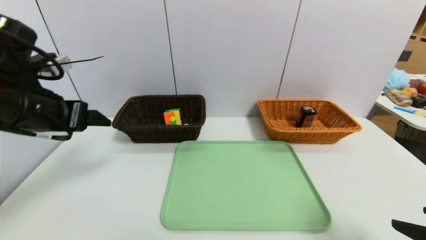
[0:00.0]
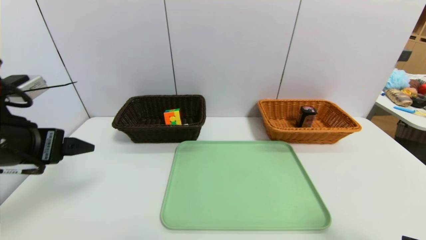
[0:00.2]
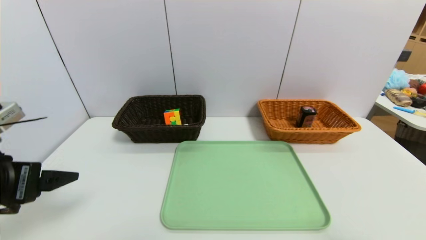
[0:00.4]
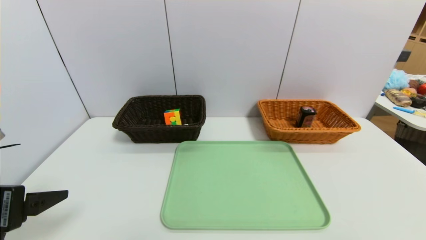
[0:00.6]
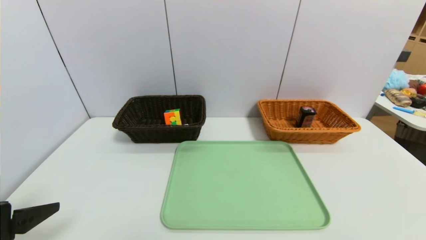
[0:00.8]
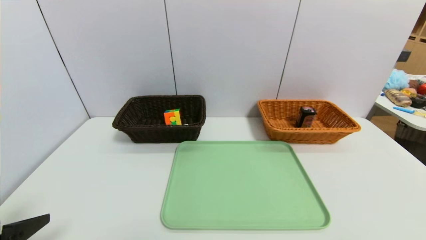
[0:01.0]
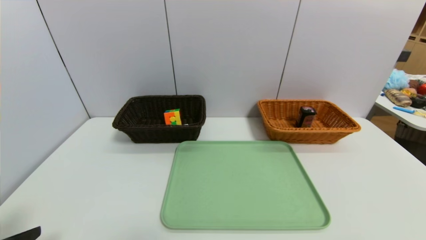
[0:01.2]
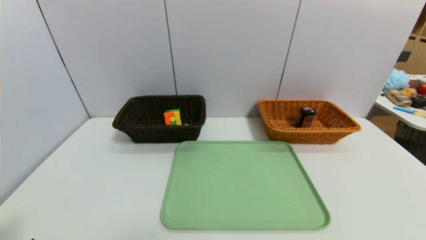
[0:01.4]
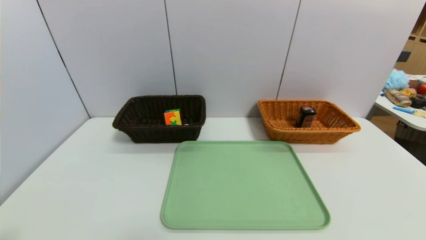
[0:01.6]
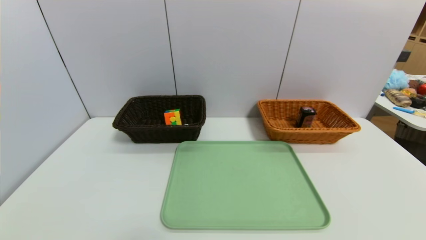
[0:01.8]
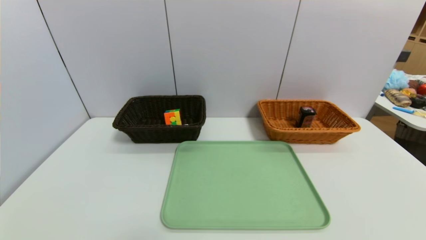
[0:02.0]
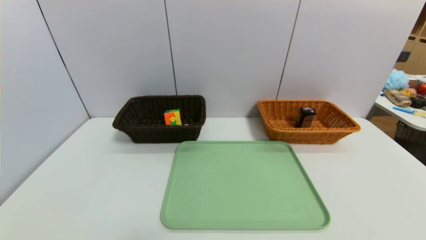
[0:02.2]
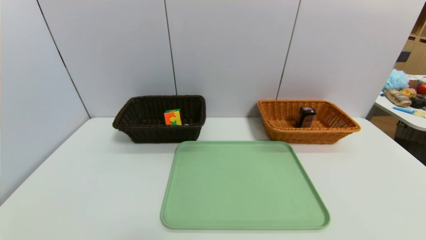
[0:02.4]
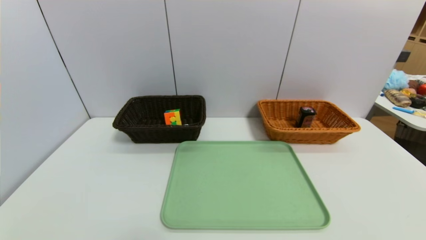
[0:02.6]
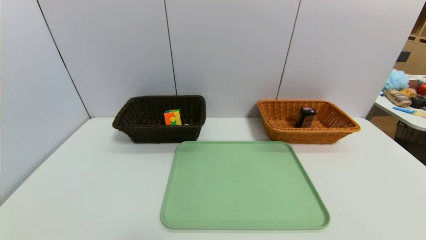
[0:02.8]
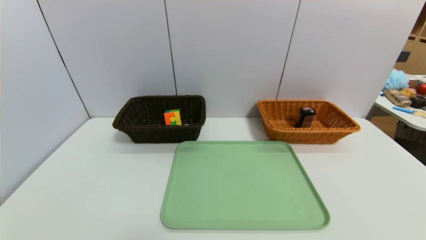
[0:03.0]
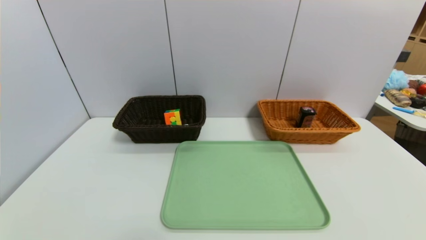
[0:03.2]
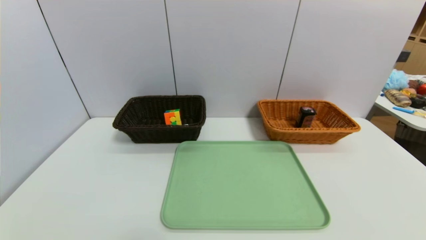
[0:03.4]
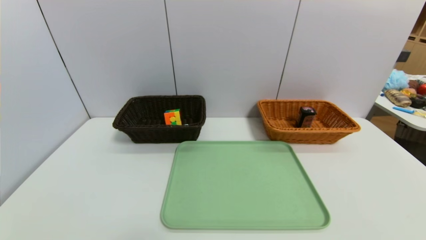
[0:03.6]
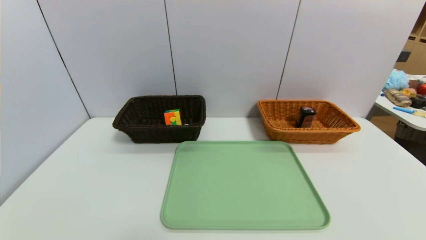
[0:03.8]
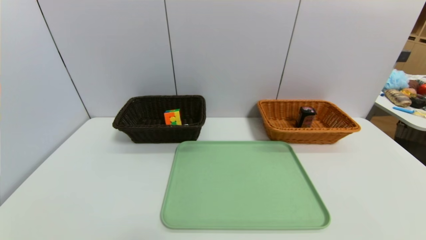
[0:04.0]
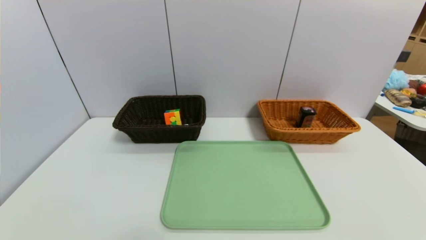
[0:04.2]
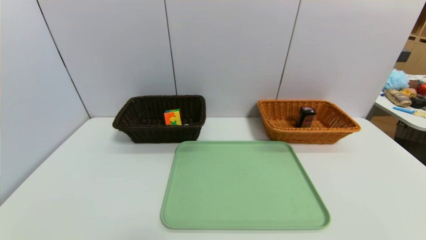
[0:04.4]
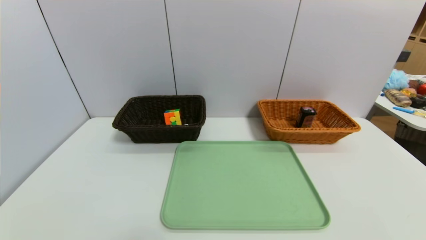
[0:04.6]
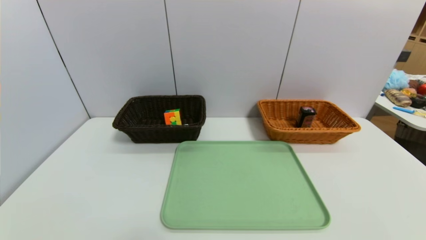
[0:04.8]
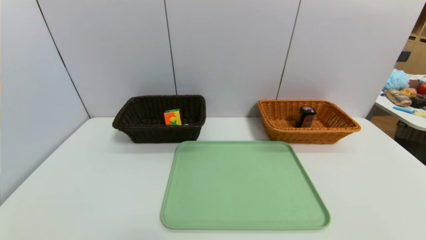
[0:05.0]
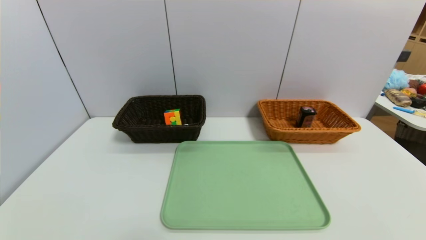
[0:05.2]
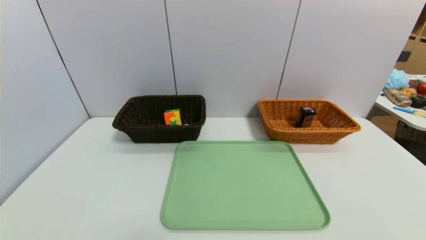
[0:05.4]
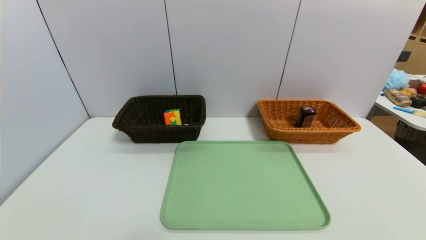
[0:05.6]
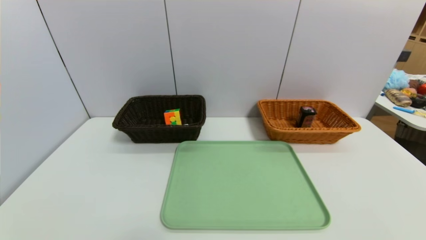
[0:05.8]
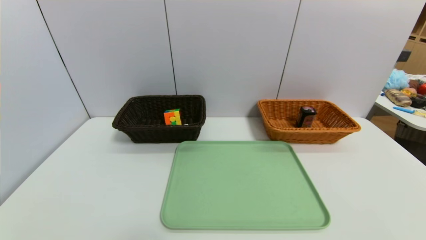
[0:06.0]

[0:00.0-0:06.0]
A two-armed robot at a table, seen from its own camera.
Task of the whole recording: place the food in the right basket with the right gripper, and place the non food items in the left basket with the left gripper.
0:00.0 to 0:01.6: The right gripper travels backward by roughly 10 cm. Meanwhile the left gripper is displaced backward and downward by some 25 cm.

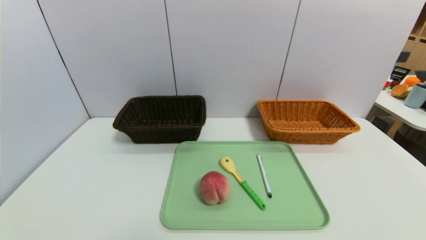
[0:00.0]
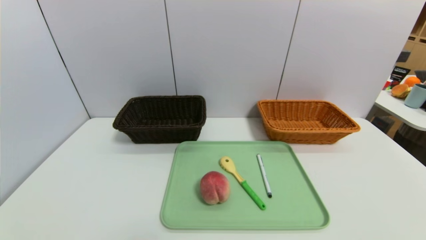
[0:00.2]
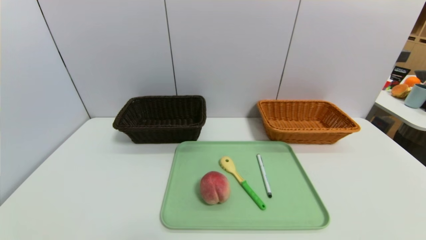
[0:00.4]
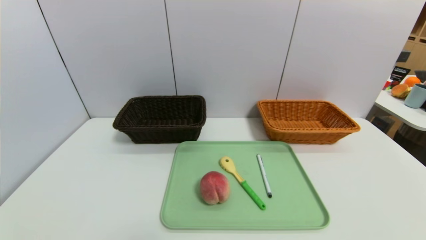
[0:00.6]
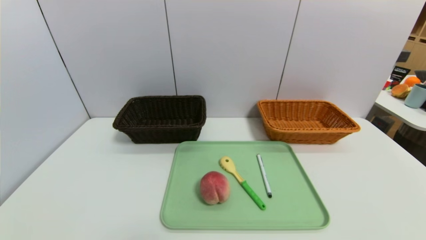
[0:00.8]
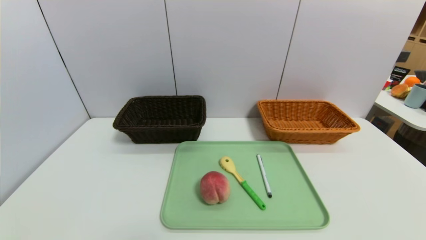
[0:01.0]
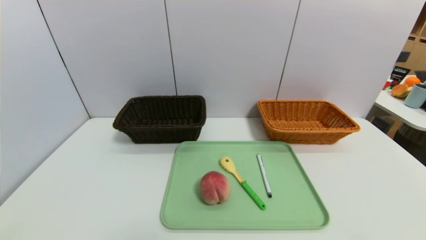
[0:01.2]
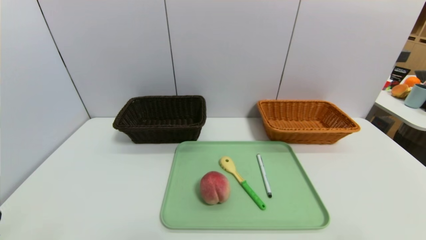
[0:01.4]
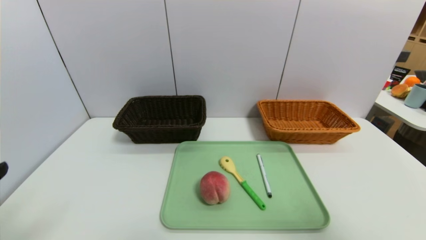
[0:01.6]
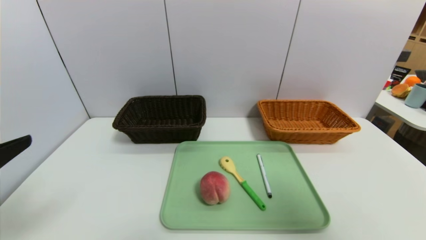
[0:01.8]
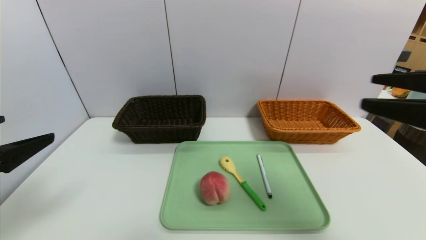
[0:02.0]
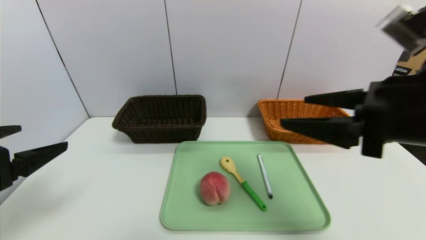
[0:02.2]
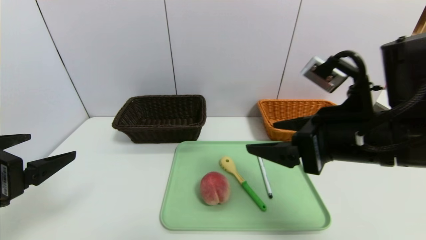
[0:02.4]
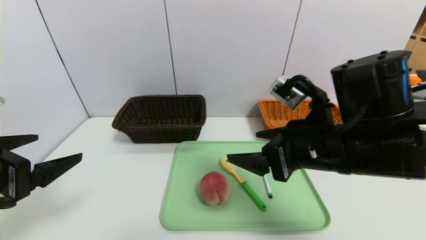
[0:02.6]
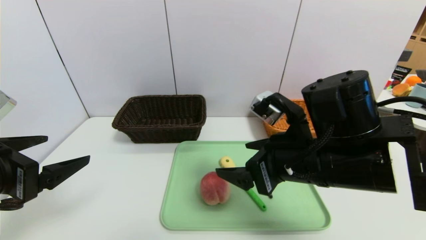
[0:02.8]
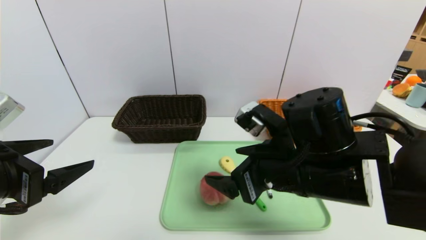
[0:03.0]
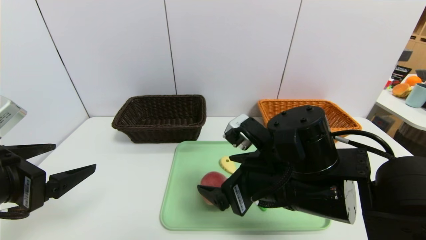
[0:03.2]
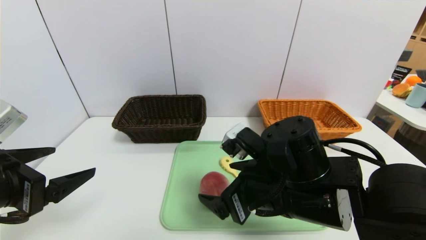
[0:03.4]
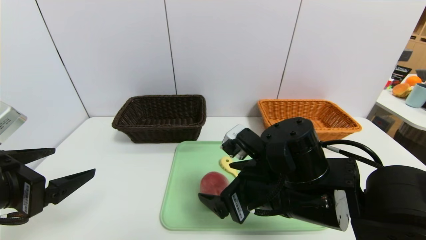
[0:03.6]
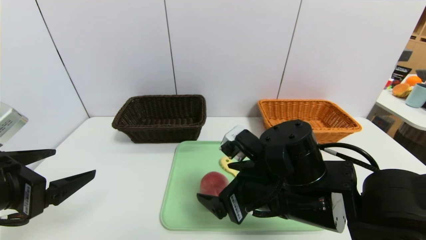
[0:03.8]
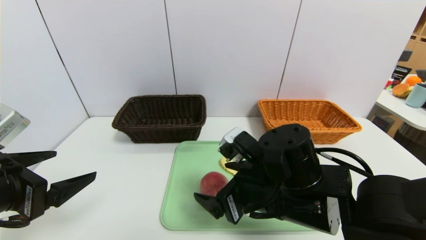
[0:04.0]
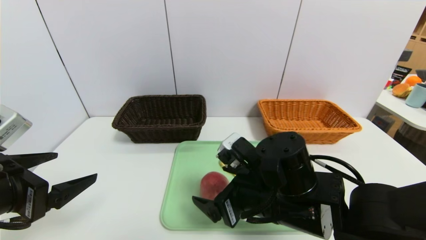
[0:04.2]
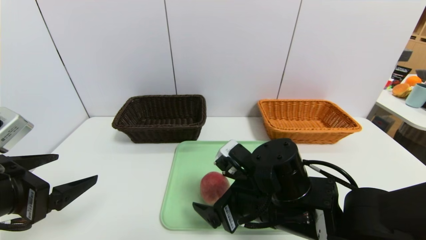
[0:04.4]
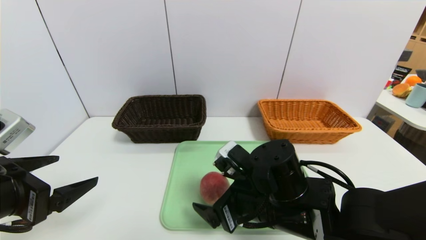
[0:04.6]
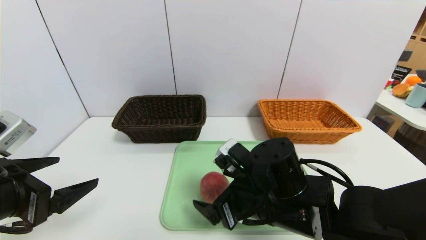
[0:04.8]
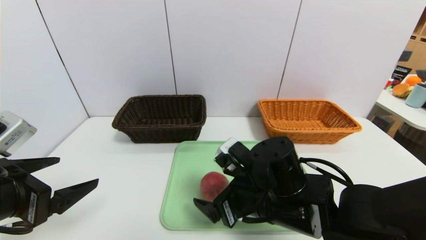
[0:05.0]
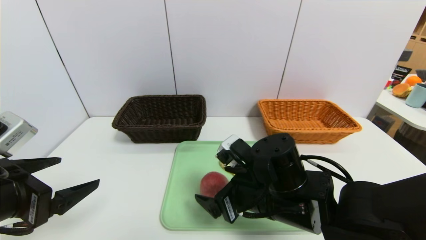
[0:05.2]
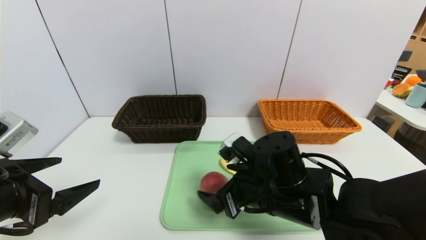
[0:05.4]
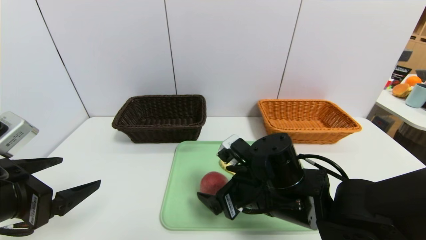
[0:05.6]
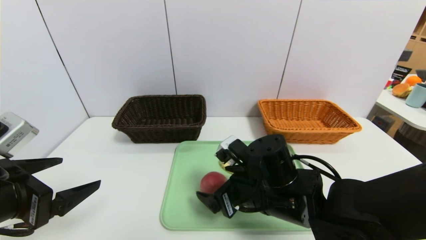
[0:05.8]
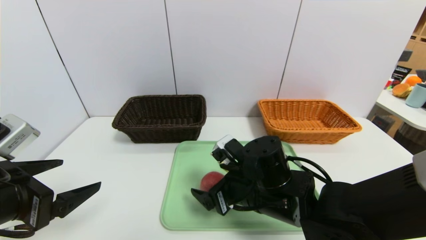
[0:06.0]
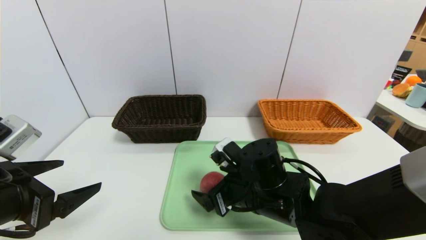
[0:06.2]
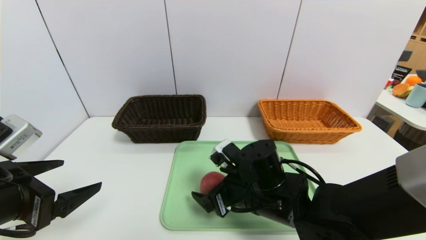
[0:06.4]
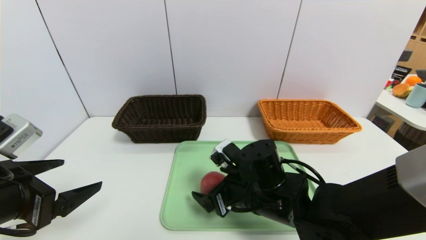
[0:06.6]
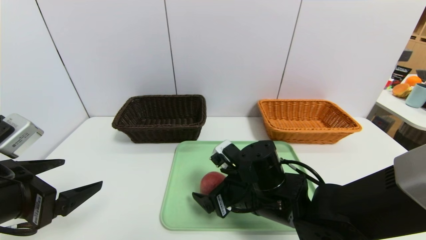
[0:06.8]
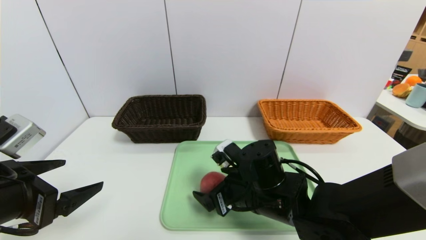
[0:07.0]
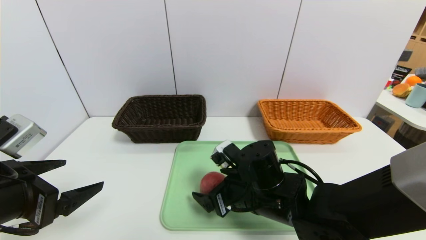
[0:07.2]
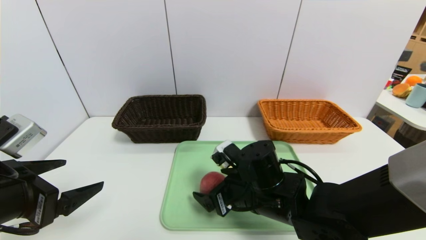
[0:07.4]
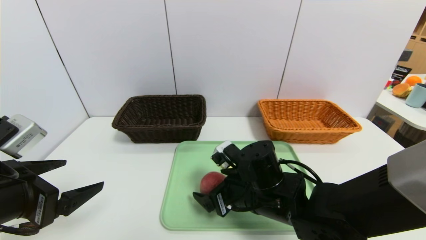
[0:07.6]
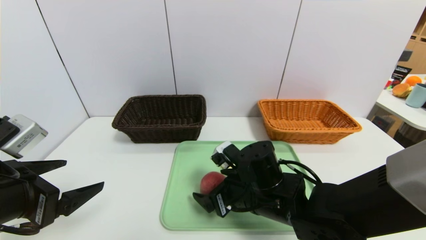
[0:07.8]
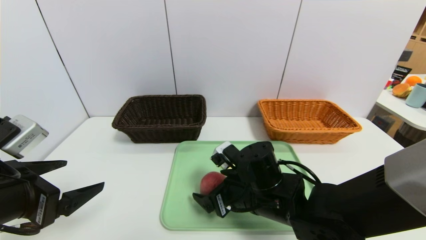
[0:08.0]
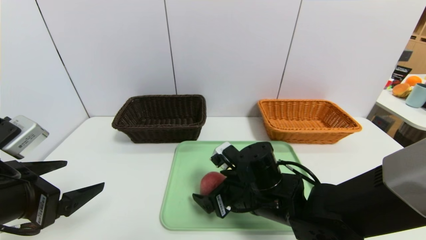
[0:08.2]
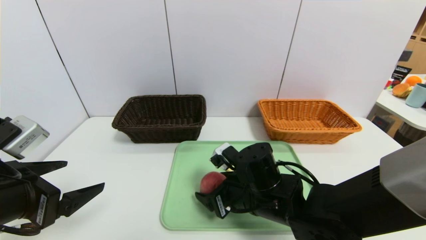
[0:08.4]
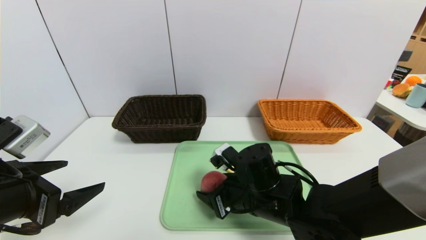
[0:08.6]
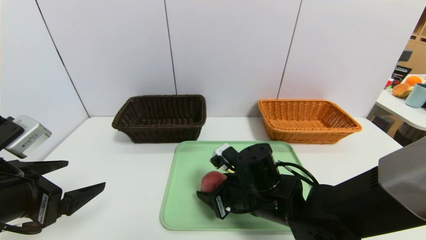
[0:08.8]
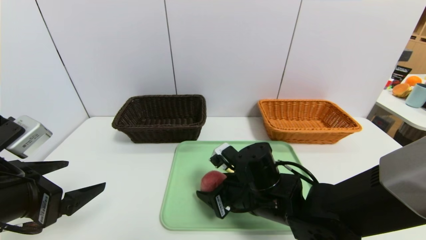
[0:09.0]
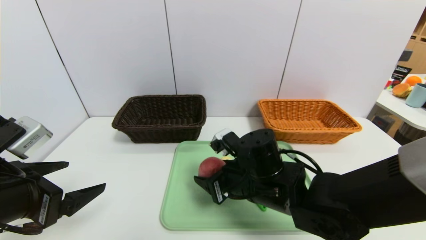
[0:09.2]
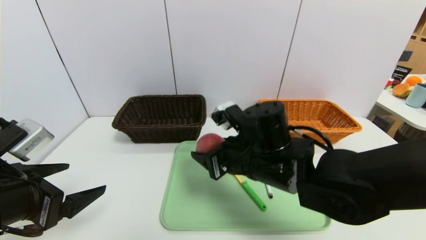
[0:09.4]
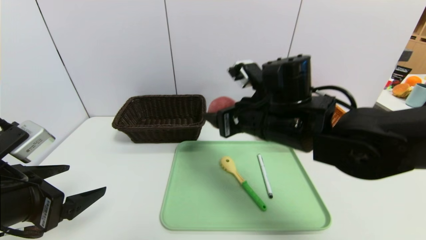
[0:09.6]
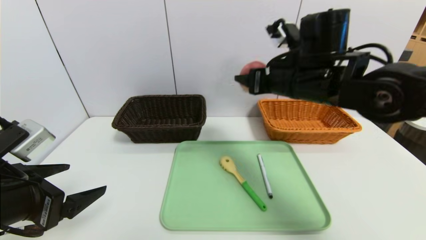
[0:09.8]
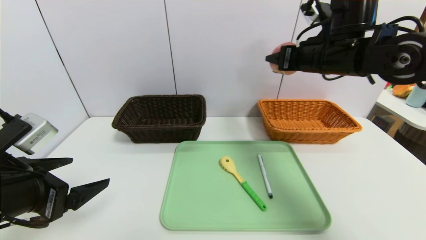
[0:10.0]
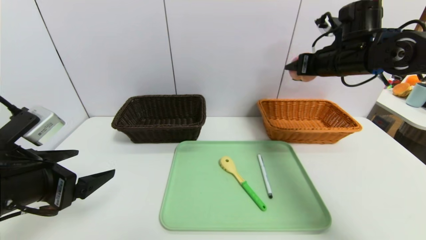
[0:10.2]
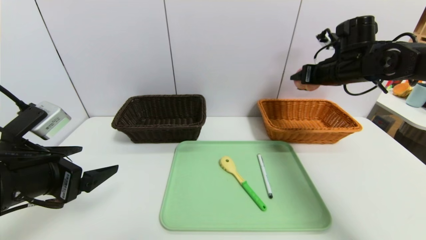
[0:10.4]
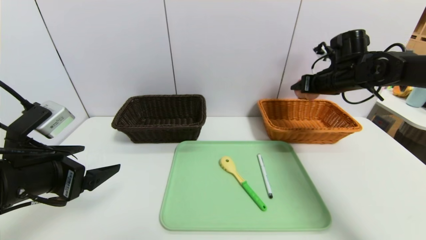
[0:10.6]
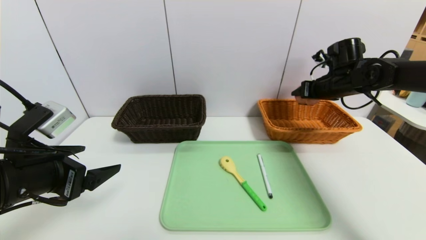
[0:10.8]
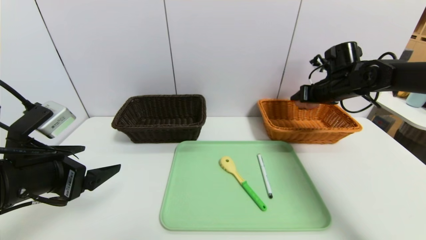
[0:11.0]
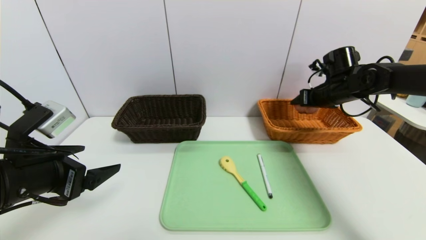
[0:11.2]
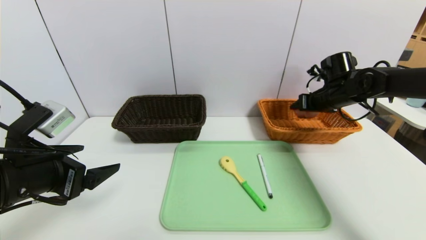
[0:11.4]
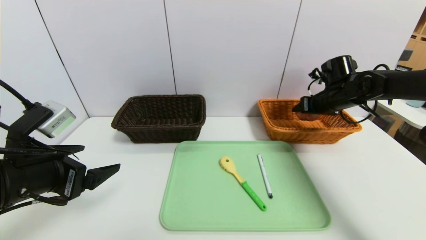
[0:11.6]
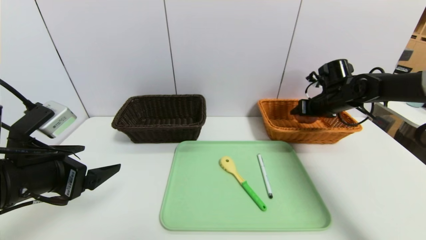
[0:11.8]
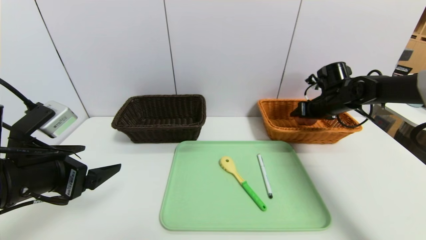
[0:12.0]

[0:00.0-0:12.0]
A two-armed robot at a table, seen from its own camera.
Task of the whole recording: place the food in the right basket with the right gripper, and place the non food items in the left basket with the left gripper.
0:00.0 to 0:01.6: The right gripper travels upward by some 25 cm.
0:01.6 to 0:03.0: The left gripper goes some 10 cm forward, while the right gripper heads to the left, forward and downward, covering some 30 cm.
0:03.0 to 0:04.4: The right gripper goes roughly 5 cm downward.
0:04.4 to 0:07.6: The grippers make only small movements.
0:07.6 to 0:09.0: Both grippers stay put.
0:09.0 to 0:10.4: The right gripper moves to the right, forward and upward, approximately 35 cm.
0:10.4 to 0:12.0: The right gripper is displaced downward by some 10 cm.
